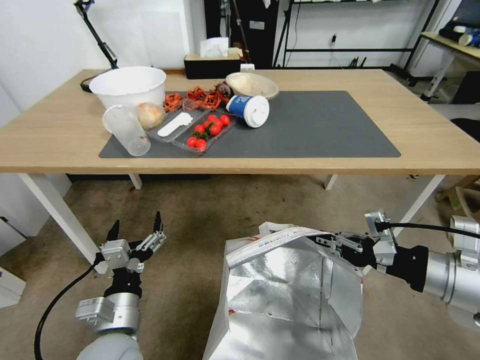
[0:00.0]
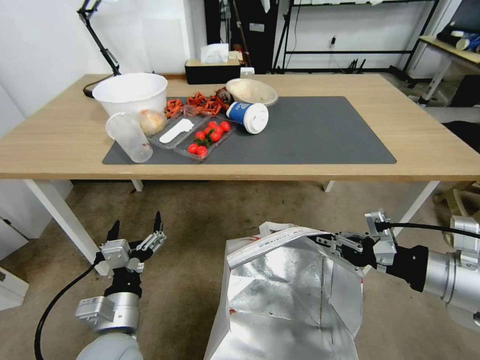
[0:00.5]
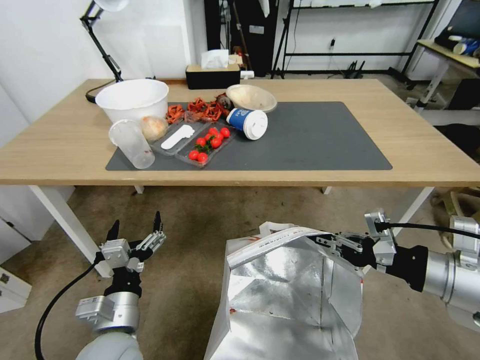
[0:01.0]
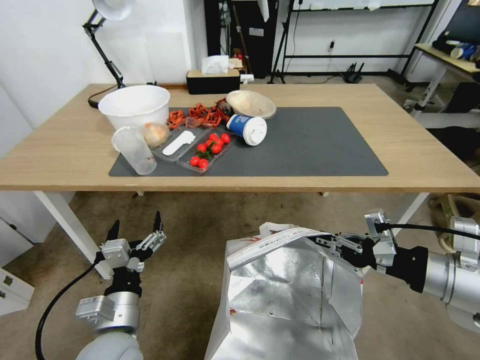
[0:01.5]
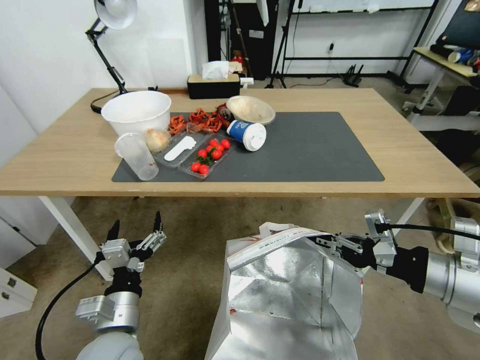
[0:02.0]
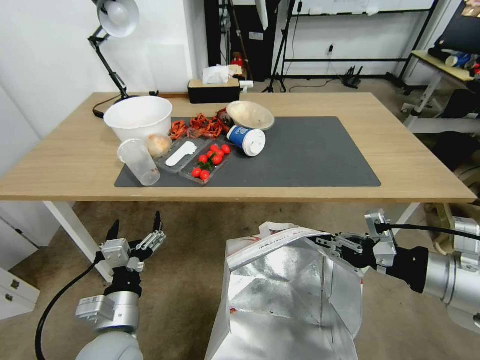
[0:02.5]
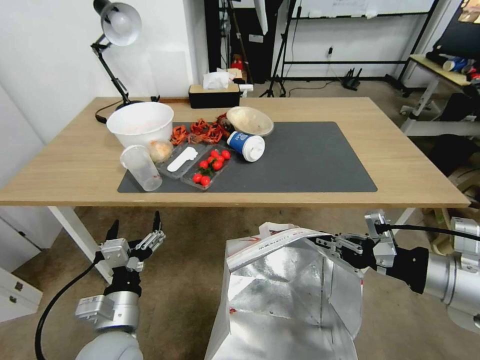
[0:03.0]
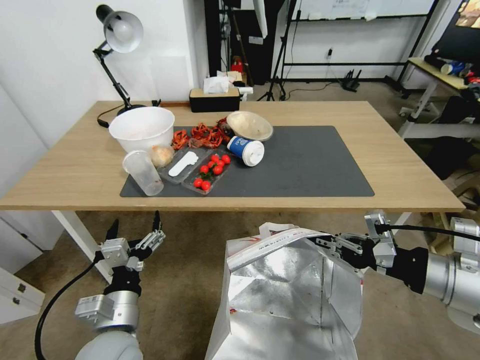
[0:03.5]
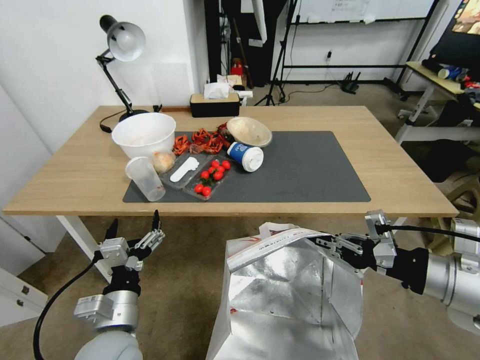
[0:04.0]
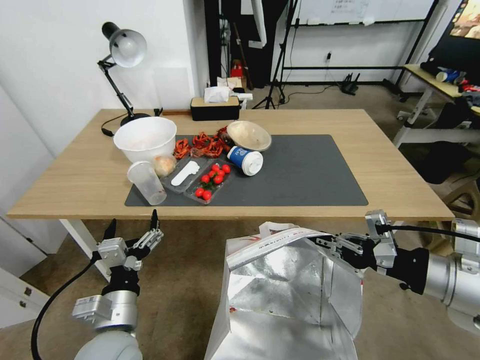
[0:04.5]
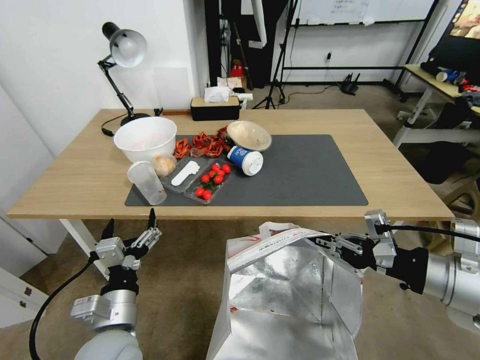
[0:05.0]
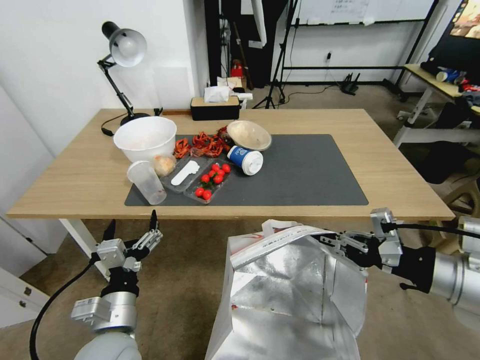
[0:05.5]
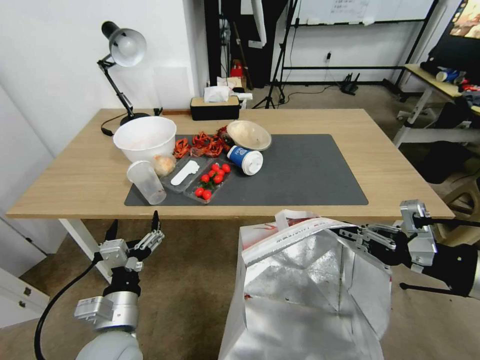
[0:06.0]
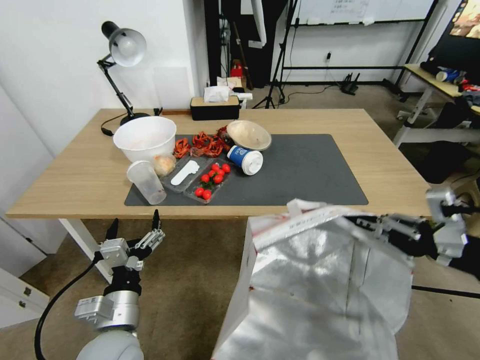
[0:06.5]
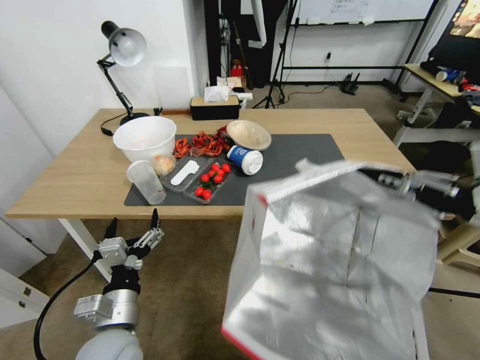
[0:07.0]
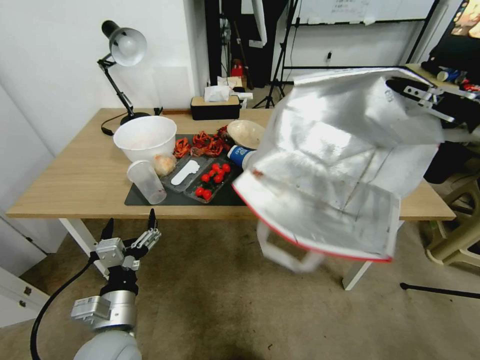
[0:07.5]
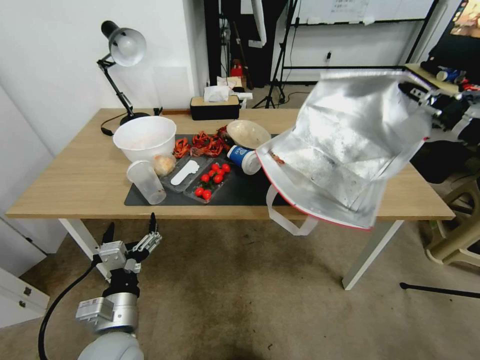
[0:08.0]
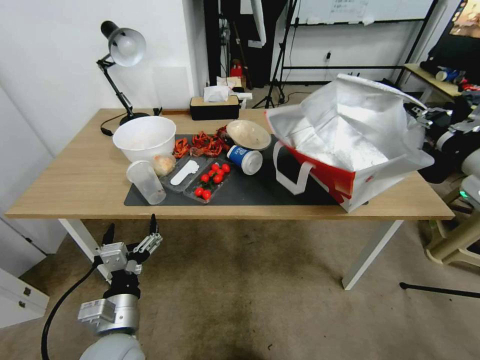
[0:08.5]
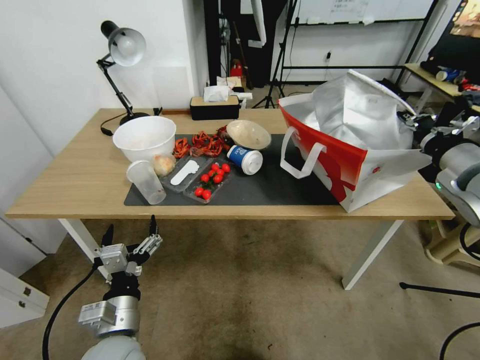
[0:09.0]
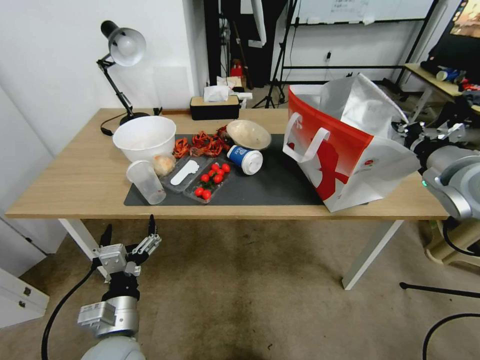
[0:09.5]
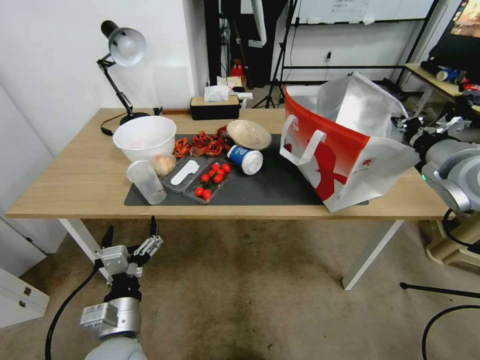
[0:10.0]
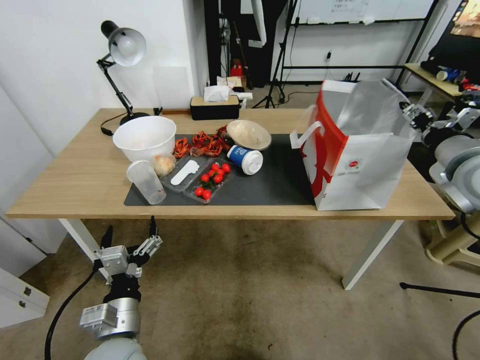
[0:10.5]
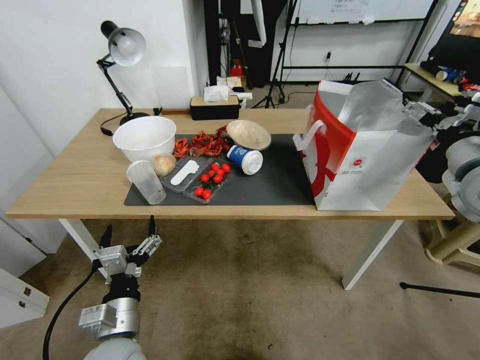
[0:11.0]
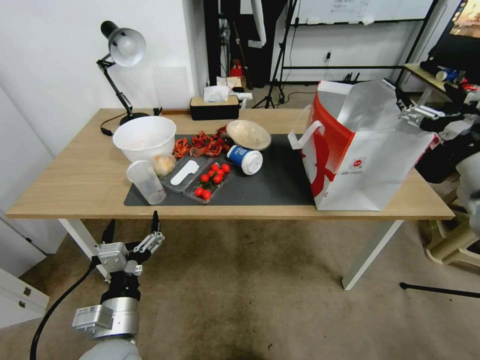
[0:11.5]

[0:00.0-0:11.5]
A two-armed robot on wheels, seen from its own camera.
Task of the whole recording: Pick up the food delivery bag from the floor and place it on the table.
0:04.0 to 0:06.0: The right gripper changes place by some 5 cm.
0:06.0 to 0:07.5: The right gripper goes about 15 cm upward and forward.
0:07.5 to 0:09.5: The right gripper is displaced downward and forward by some 15 cm.
0:09.5 to 0:11.5: The right gripper heads backward, covering some 5 cm, and opens.

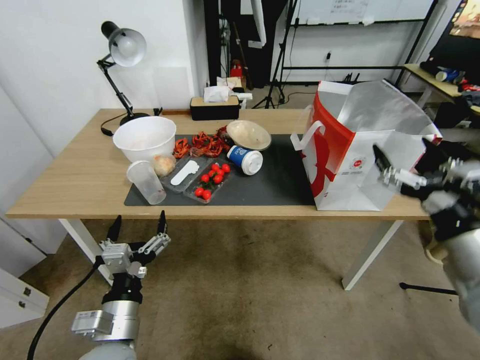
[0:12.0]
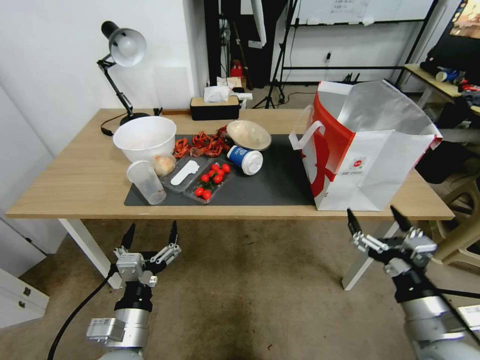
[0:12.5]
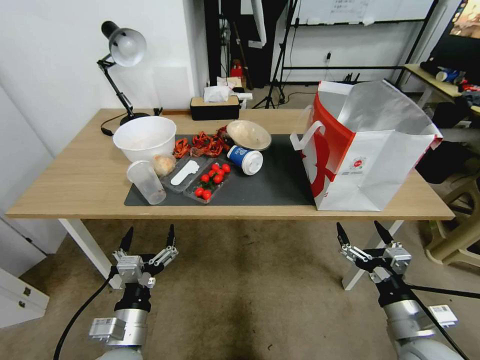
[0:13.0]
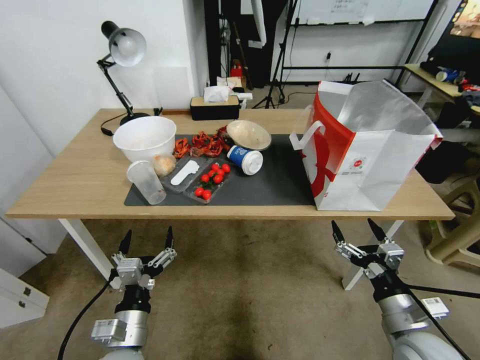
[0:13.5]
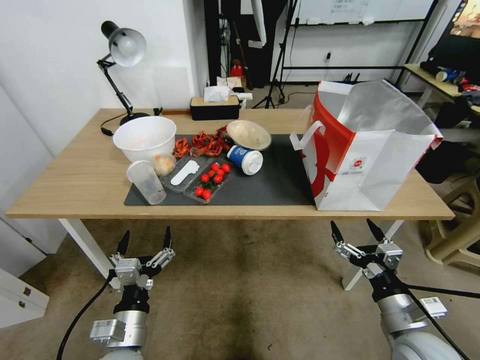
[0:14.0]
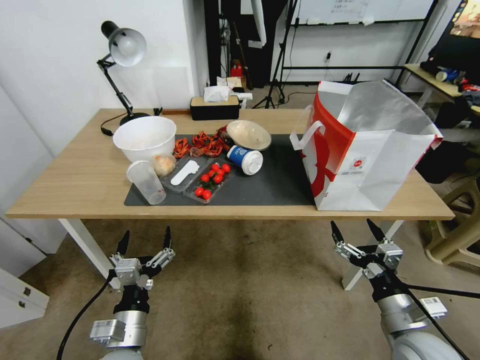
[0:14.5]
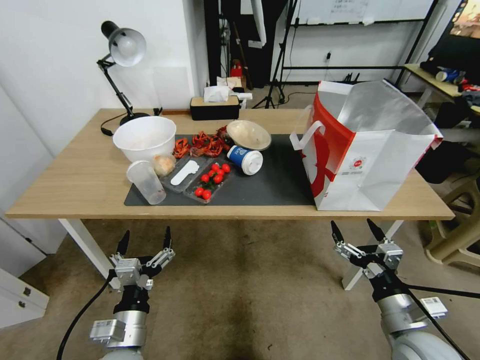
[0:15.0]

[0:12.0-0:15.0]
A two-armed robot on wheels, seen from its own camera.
Task of the whole recording: Pick up the food delivery bag from the floor and place it on the table.
0:12.0 to 0:13.5: The left gripper heads downward, covering roughly 5 cm, while the right gripper moves downward, approximately 20 cm.
0:13.5 to 0:15.0: Both grippers stay put.
